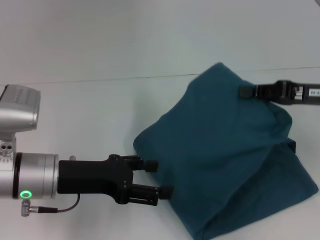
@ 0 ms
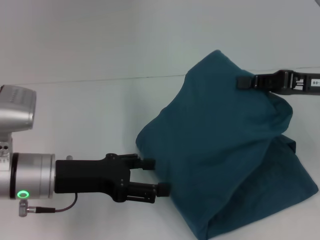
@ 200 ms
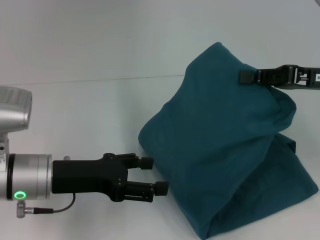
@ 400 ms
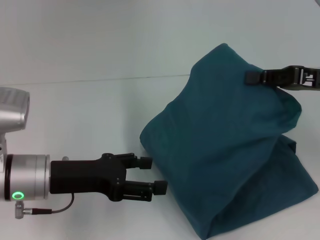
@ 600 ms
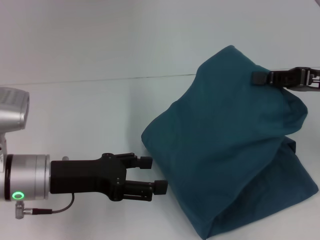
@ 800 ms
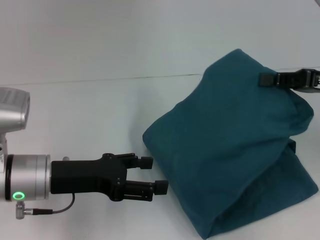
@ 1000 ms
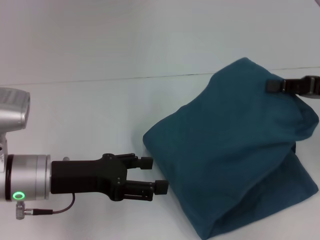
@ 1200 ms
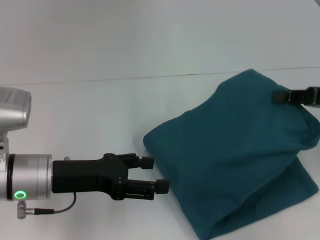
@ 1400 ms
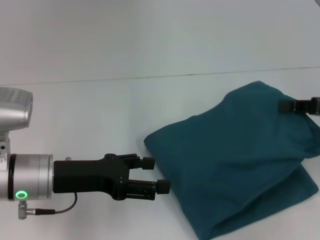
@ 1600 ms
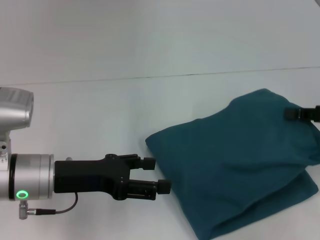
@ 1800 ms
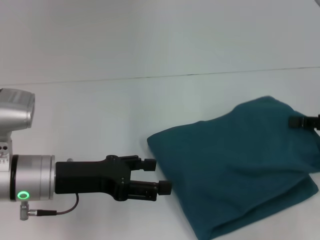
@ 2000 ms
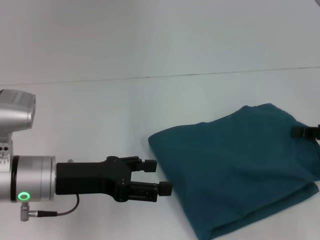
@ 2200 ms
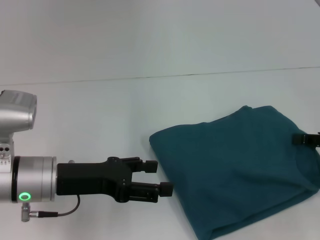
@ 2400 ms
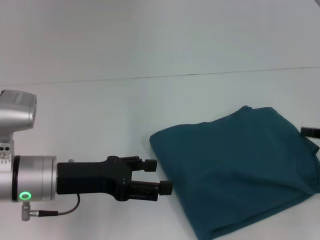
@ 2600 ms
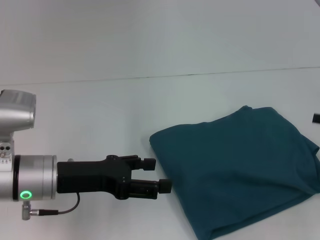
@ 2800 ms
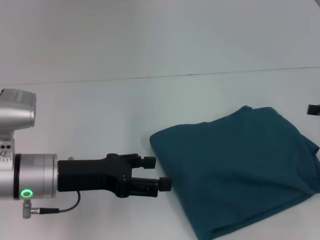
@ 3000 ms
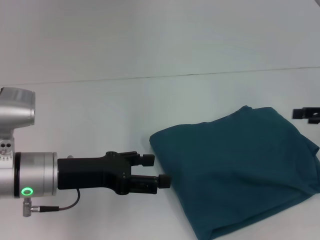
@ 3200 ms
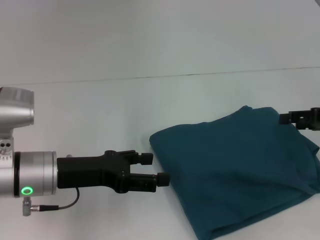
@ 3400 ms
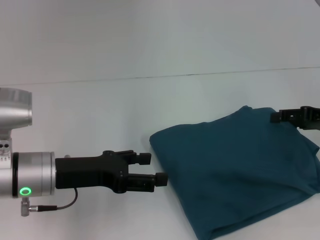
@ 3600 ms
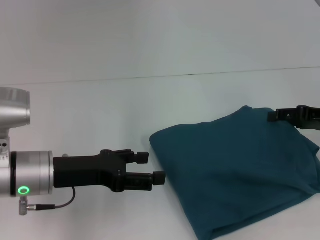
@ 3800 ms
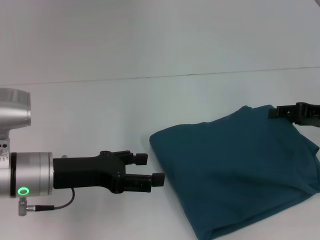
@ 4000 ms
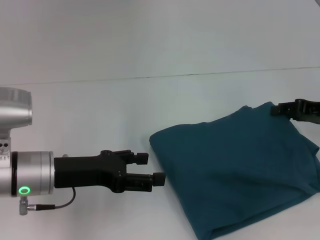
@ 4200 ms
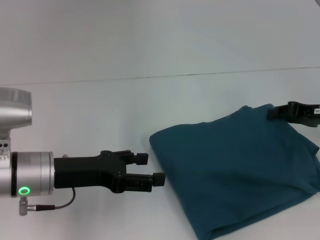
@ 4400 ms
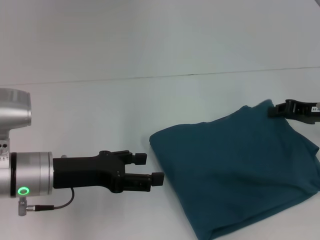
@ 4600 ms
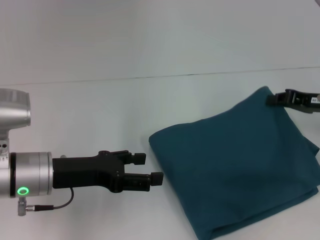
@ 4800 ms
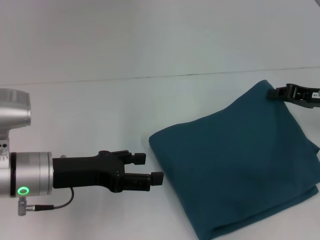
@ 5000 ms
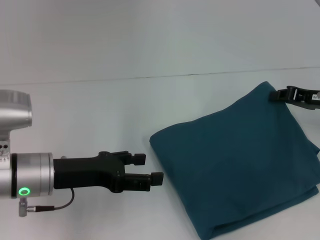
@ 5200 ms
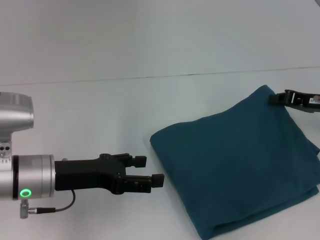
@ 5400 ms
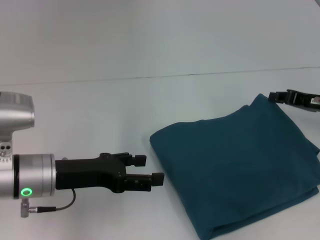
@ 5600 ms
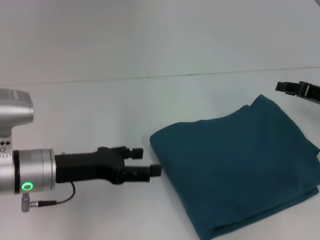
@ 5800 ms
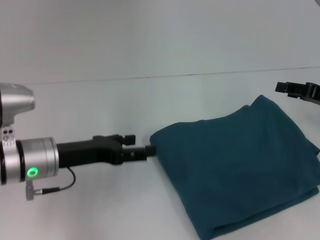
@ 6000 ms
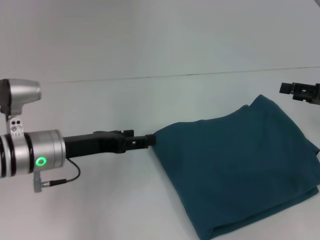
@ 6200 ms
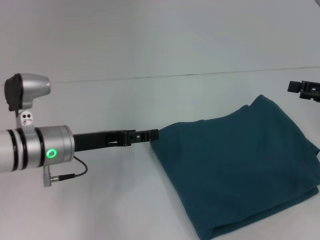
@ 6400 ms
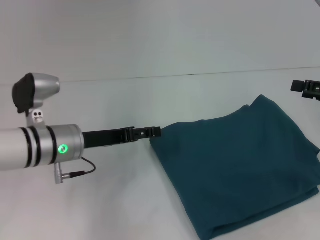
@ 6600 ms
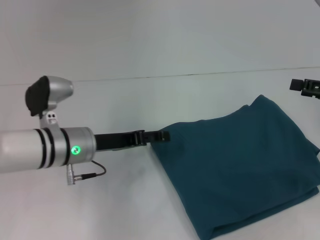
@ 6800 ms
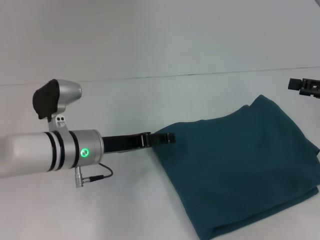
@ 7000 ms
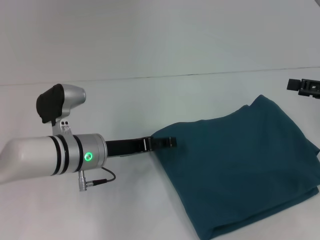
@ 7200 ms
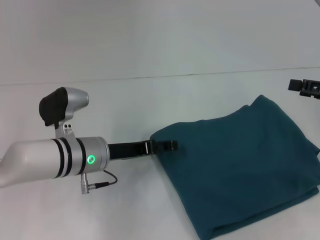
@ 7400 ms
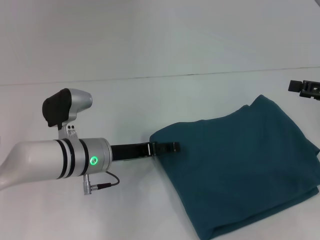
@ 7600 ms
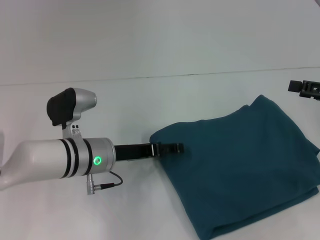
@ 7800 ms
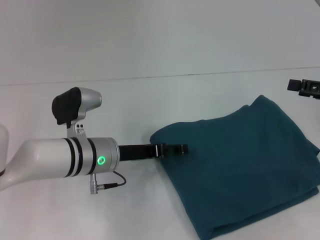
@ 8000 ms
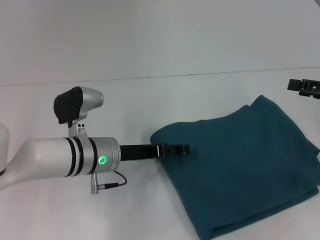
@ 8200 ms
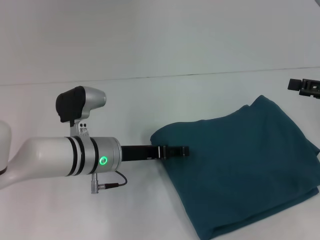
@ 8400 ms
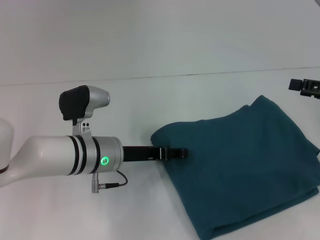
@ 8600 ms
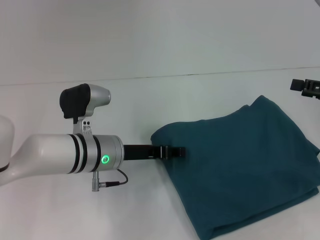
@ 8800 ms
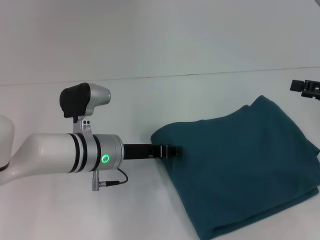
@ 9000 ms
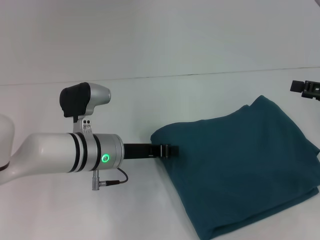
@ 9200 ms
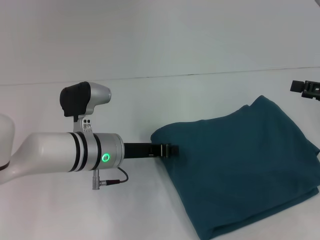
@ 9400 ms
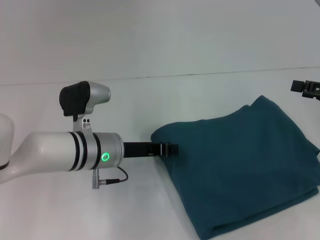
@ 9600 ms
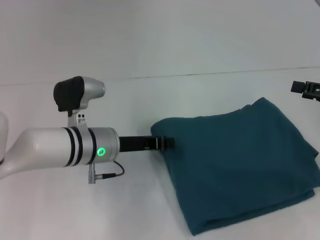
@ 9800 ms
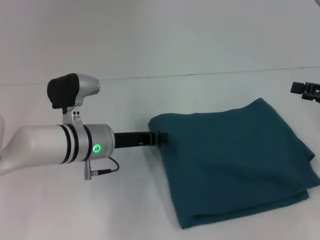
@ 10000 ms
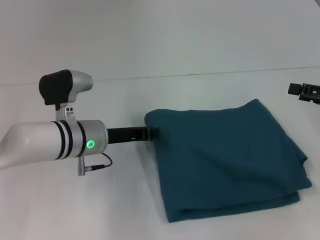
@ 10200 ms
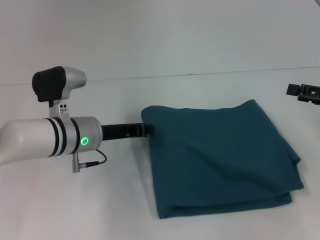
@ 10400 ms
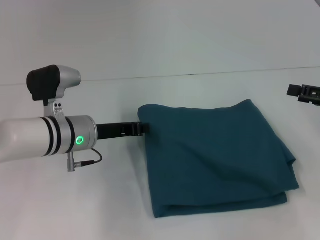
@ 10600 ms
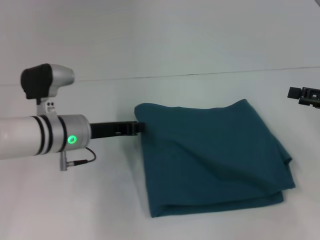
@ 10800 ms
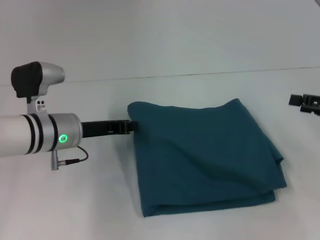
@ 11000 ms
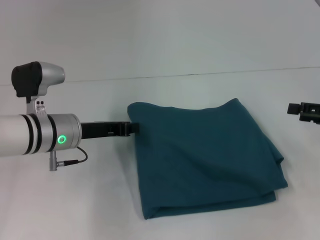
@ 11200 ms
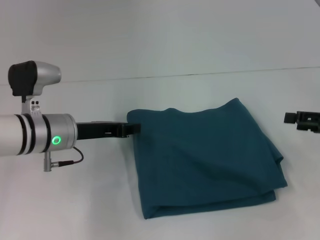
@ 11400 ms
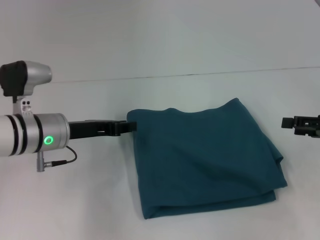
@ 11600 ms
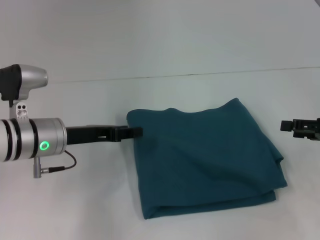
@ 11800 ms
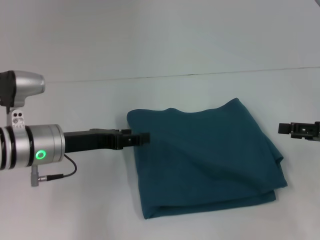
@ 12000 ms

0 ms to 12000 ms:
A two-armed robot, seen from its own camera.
0 ms to 1600 ms: The right gripper moves to the right, roughly 5 cm.
1600 ms to 3000 ms: The right gripper shifts by about 5 cm, and opens its fingers.
3000 ms to 4400 ms: The right gripper shifts some 5 cm to the left.
4400 ms to 6000 ms: The right gripper closes, then opens again.
6000 ms to 7600 ms: The left gripper goes roughly 5 cm to the right. The right gripper opens its fingers.
7600 ms to 9000 ms: The left gripper closes its fingers.
9000 ms to 10400 ms: The left gripper closes its fingers.
10400 ms to 12000 ms: The left gripper goes about 5 cm to the left, and opens.

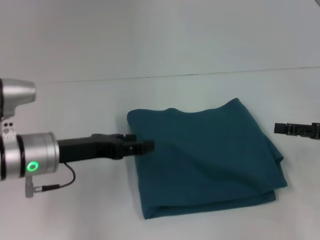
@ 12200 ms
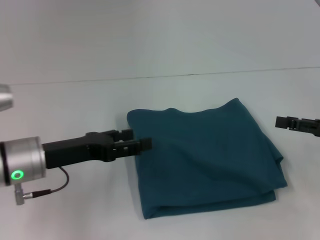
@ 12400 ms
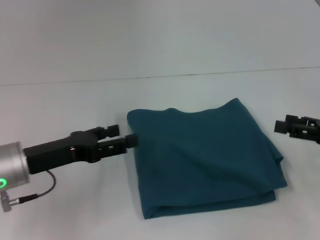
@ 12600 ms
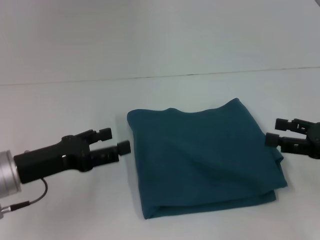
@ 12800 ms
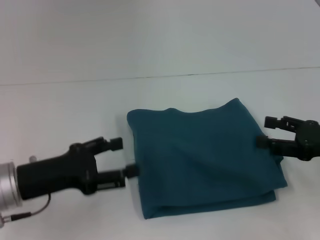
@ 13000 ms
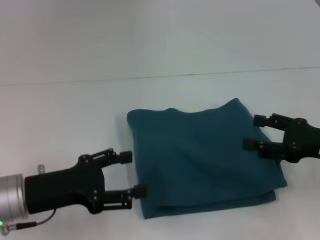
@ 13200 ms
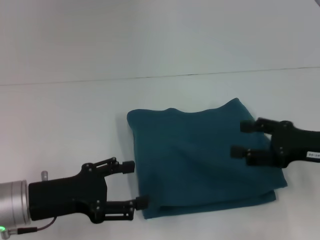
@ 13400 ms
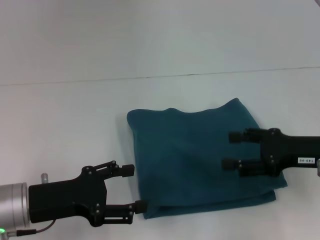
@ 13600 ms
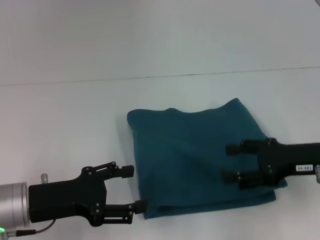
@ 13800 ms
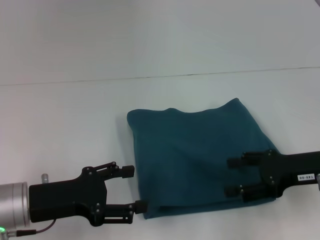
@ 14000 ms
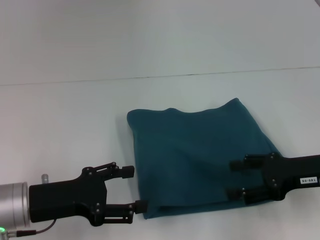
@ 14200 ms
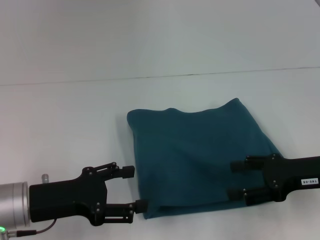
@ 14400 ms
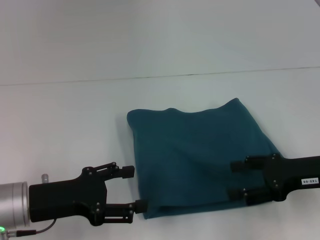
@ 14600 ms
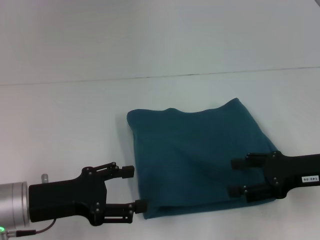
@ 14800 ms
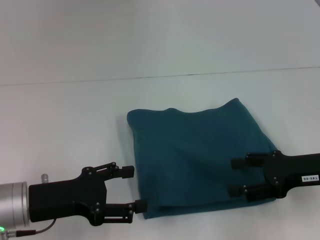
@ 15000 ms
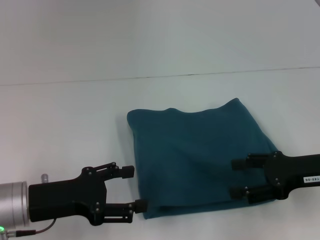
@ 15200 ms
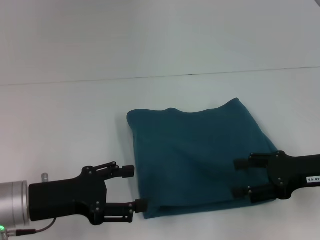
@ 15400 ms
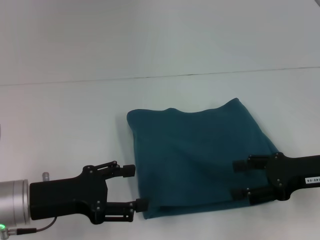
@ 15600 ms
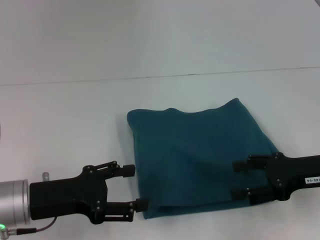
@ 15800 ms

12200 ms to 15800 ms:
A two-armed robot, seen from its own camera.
12200 ms to 14000 ms: The left gripper is displaced backward by approximately 5 cm, while the right gripper travels to the left by roughly 10 cm.
14000 ms to 15800 ms: The two grippers keep their place.

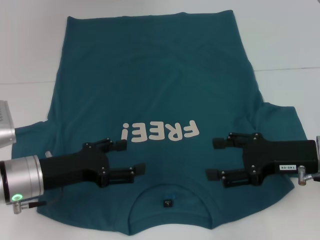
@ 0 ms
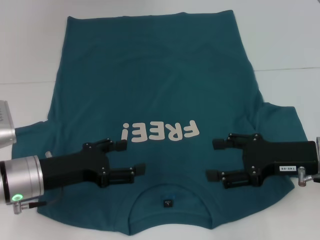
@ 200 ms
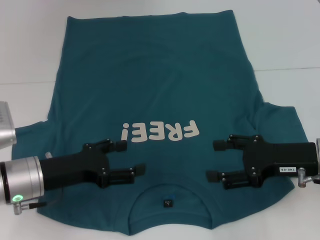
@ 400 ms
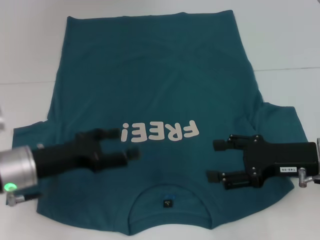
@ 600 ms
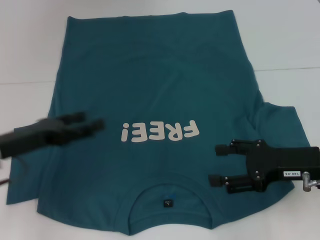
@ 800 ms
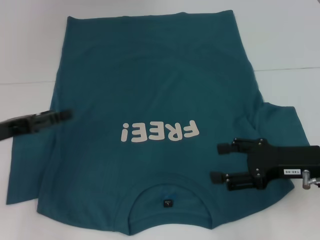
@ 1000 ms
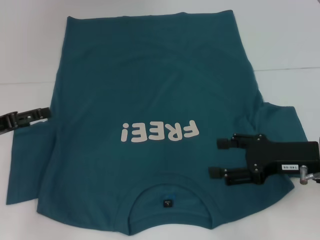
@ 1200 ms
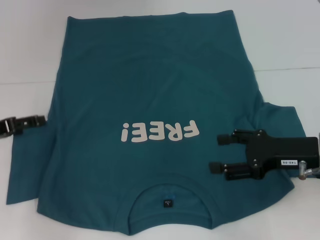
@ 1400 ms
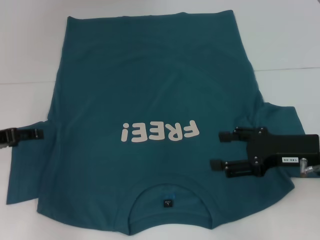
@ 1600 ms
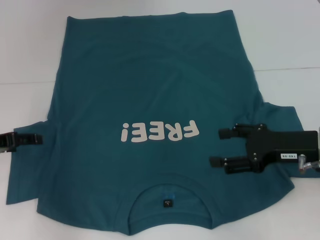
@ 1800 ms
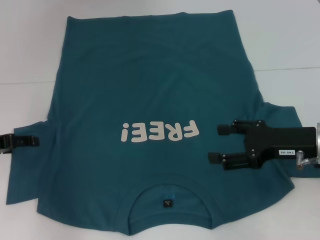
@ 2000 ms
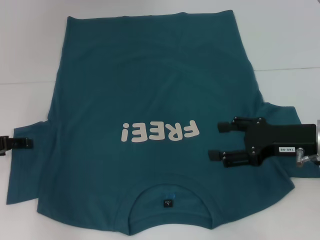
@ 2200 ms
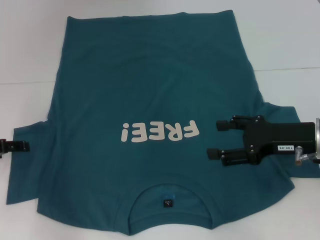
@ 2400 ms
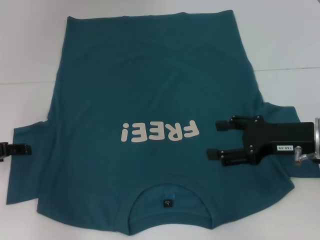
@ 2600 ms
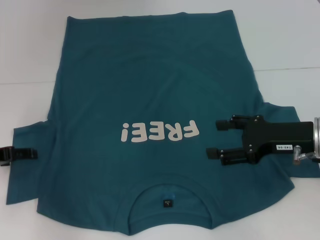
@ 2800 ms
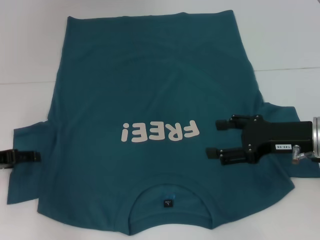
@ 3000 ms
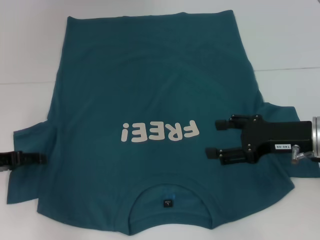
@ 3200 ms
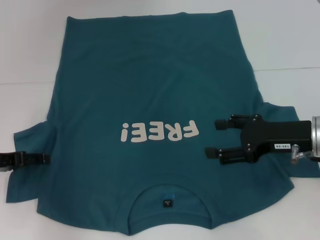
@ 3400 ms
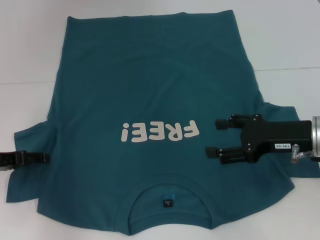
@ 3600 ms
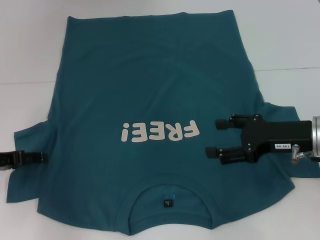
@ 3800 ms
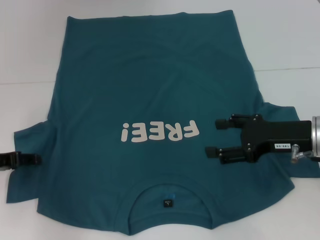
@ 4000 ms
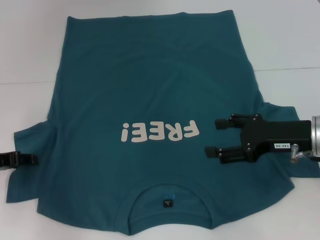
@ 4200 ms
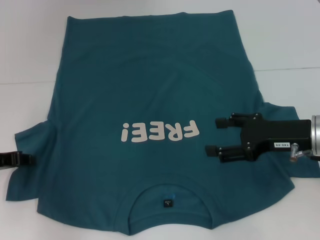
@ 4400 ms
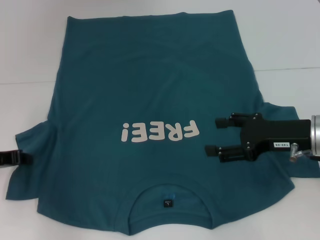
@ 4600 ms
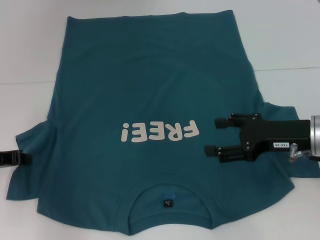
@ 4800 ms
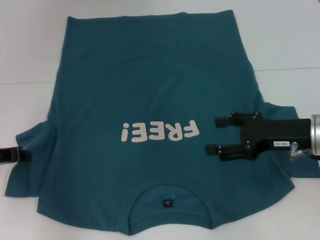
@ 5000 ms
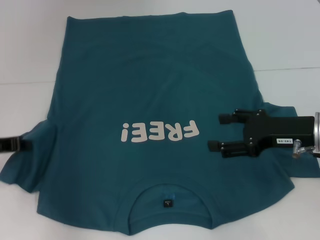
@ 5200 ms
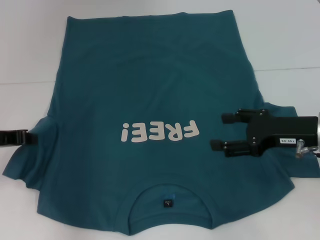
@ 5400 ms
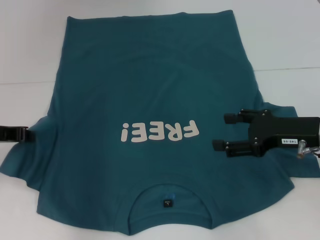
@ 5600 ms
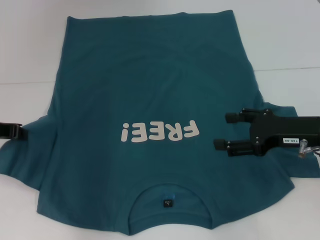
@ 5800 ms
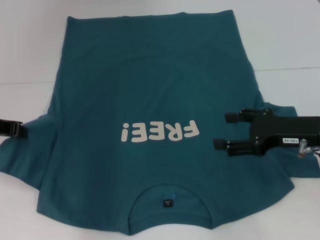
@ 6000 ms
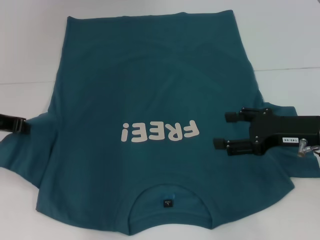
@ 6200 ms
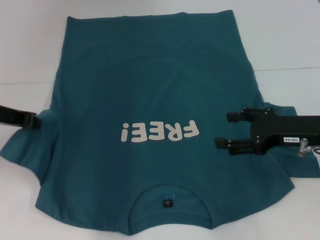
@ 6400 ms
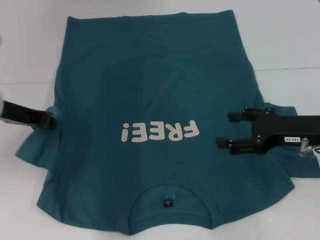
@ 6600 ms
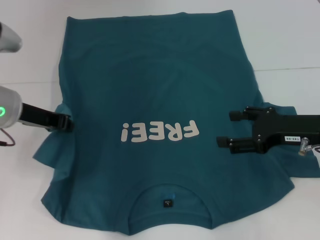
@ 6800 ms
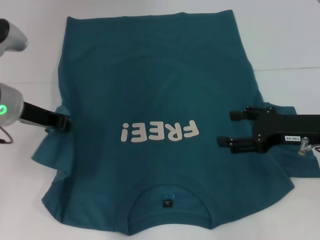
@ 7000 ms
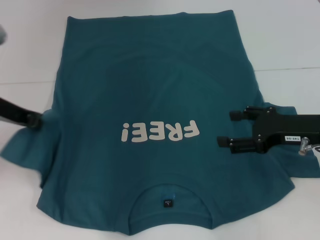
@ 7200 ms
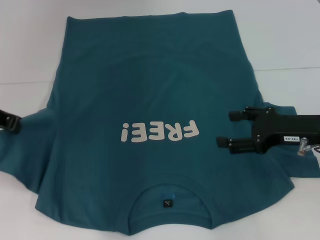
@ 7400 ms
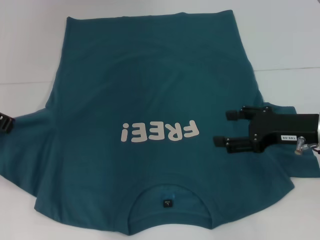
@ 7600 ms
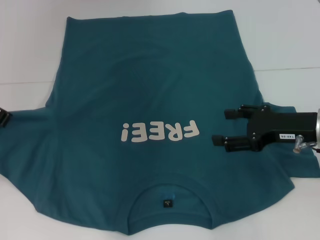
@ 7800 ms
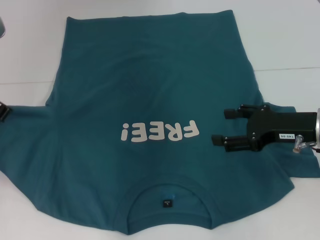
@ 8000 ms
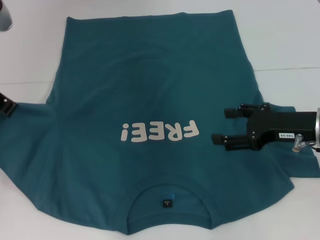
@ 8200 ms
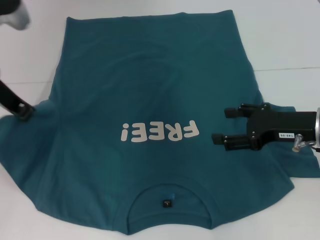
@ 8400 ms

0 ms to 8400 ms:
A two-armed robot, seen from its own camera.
0 ms to 1400 ms: The left gripper heads to the left, covering approximately 10 cm.
1400 ms to 4200 ms: The grippers stay close to where they were, moving slightly.
4200 ms to 5600 ms: The left gripper is displaced upward by about 5 cm, and closes up.
5600 ms to 7000 ms: The left gripper moves to the right, roughly 10 cm.
7000 ms to 8400 ms: The left gripper heads upward, covering about 5 cm.
